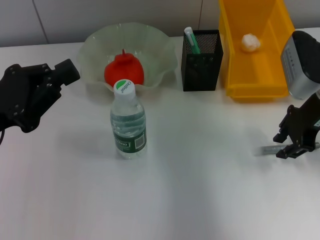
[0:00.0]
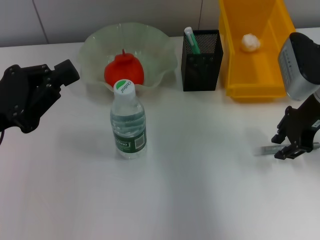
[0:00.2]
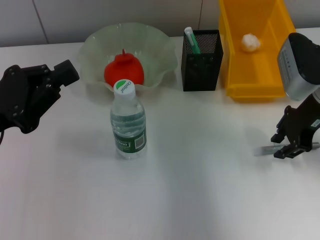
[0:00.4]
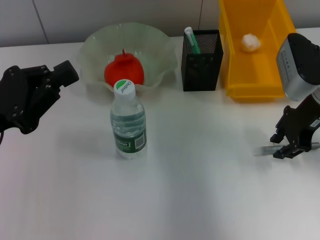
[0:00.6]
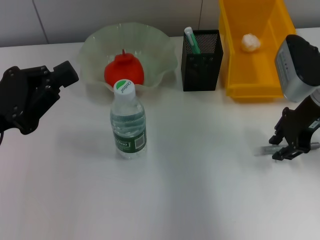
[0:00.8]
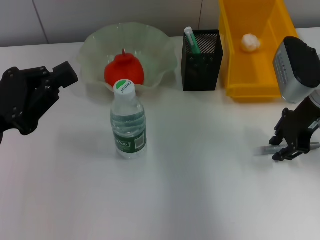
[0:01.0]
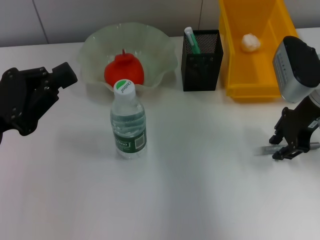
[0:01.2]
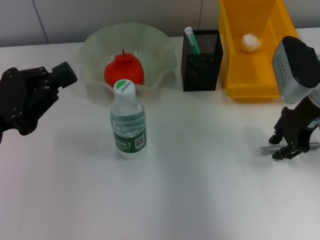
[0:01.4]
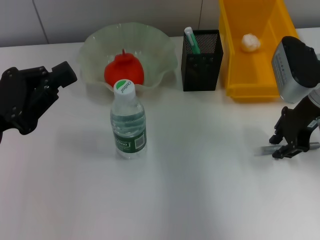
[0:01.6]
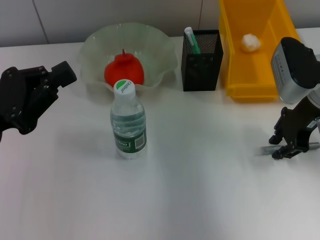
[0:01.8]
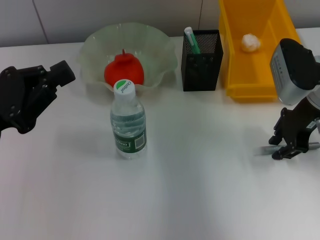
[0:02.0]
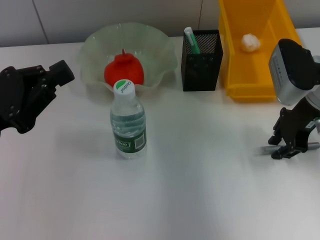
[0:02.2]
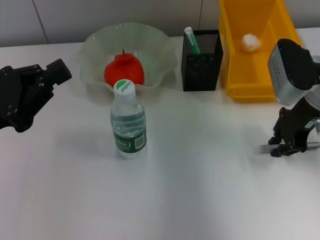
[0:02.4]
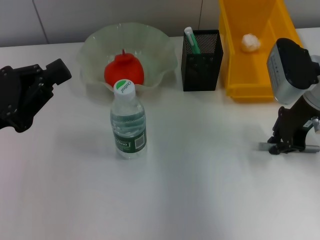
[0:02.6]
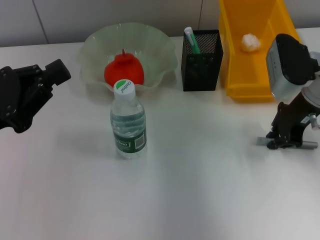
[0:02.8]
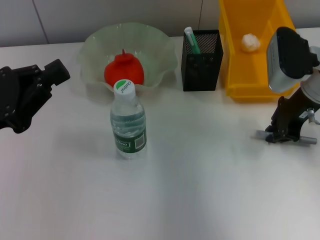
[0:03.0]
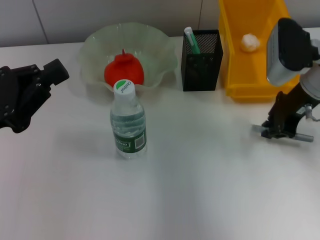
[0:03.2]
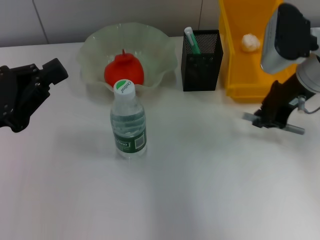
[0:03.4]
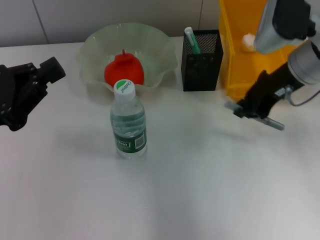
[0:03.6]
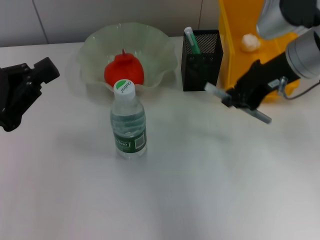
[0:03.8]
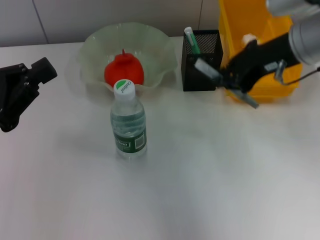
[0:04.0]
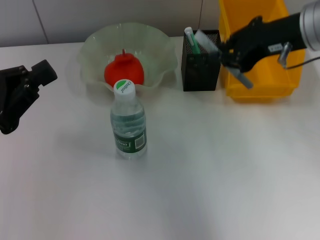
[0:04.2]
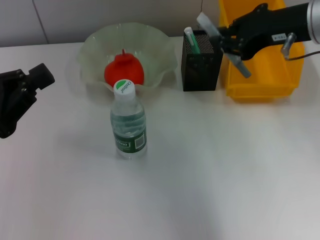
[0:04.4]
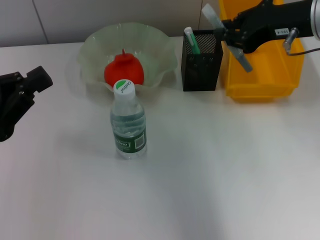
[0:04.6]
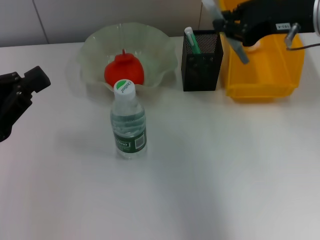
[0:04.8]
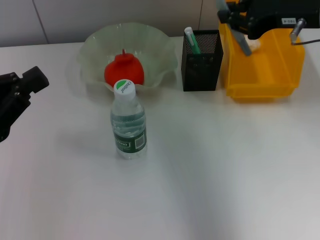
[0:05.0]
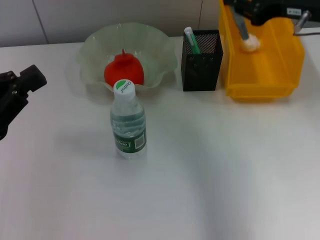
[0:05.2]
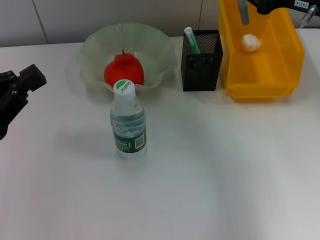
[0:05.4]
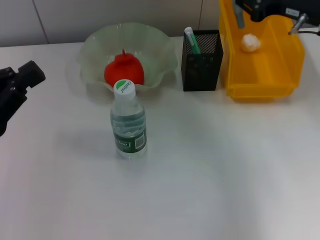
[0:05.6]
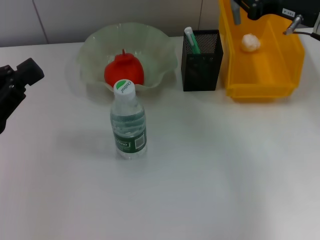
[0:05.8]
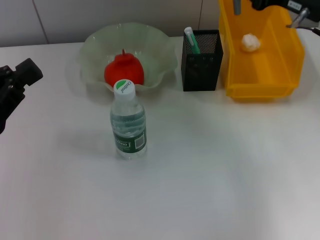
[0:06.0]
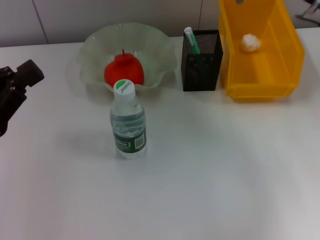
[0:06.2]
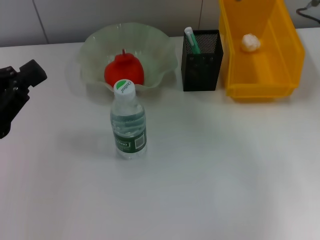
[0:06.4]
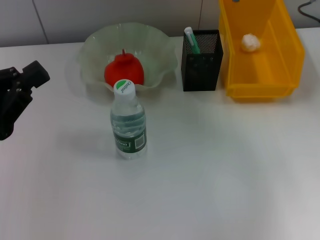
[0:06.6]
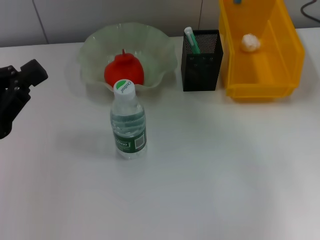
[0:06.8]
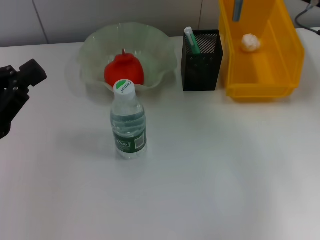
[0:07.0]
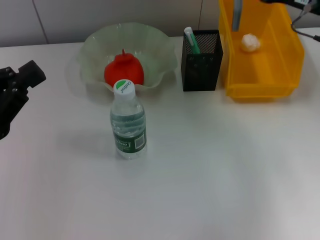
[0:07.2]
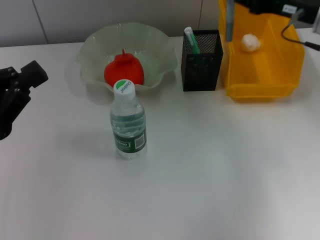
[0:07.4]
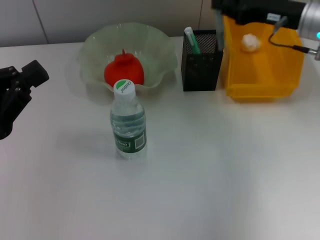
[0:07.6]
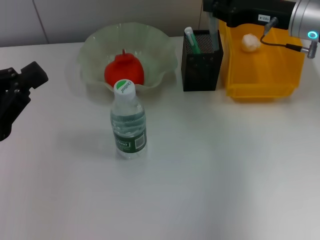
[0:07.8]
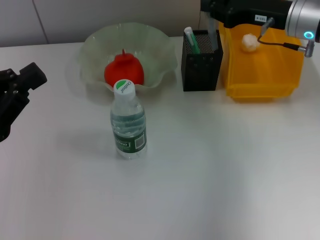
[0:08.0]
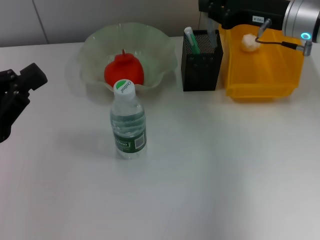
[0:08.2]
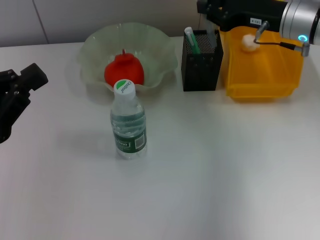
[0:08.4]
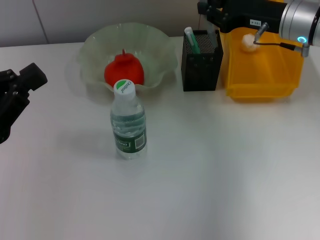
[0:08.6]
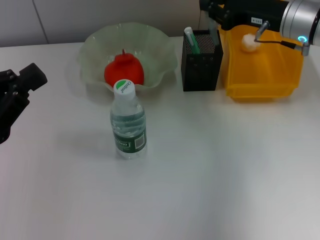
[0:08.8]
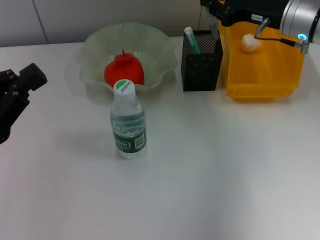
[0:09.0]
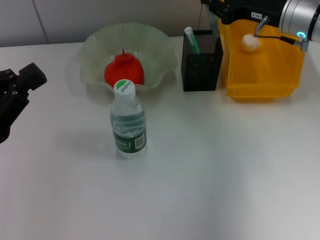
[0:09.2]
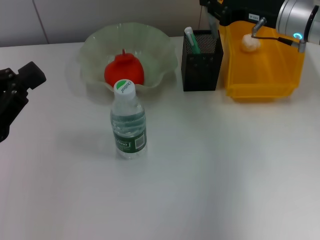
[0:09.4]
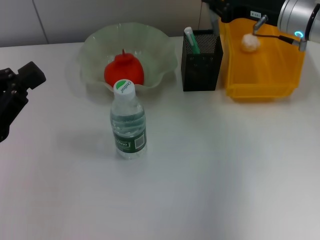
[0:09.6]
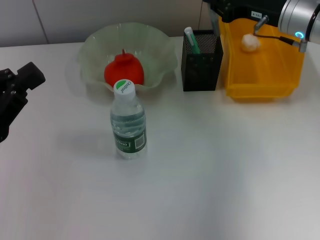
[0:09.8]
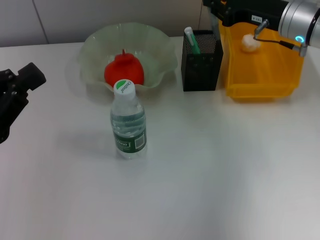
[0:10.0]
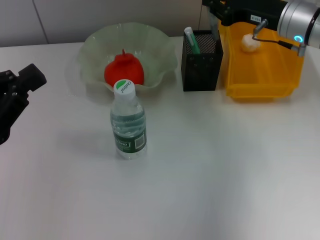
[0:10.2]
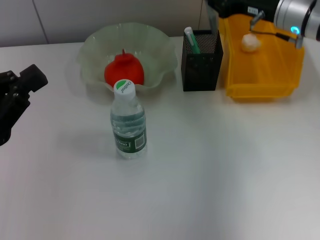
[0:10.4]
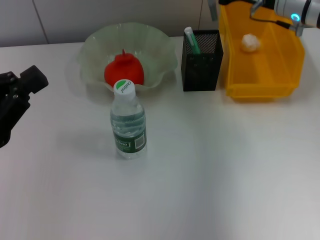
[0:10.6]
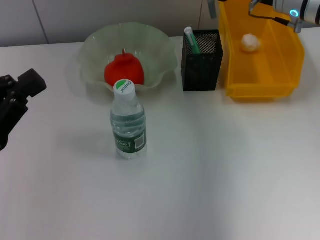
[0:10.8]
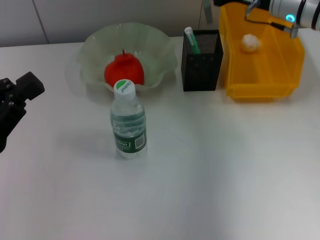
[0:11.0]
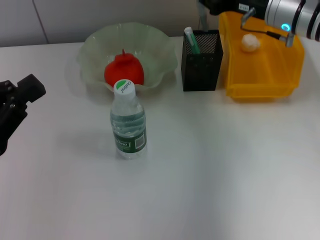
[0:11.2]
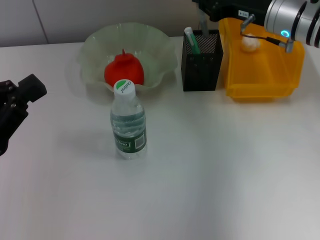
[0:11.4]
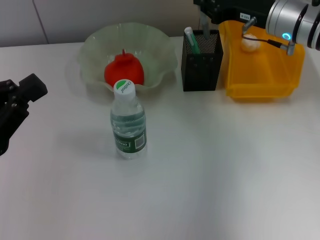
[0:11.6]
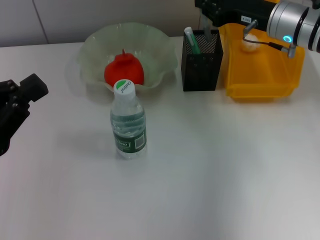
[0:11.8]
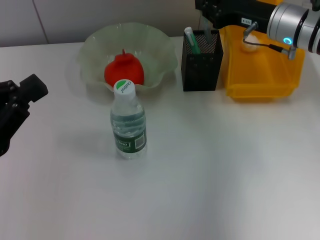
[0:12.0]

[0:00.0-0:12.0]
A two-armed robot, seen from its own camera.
Step, 0:00.0 to 0:02.8: Grab the gray glue with the right hand.
0:00.0 to 0:01.6: Both grippers stay about where they are.
0:01.6 to 0:03.0: There are only small adjustments of the grippers.
0:03.0 to 0:04.4: The right gripper shifts some 10 cm upward.
0:04.4 to 0:06.0: The right gripper is displaced downward by some 5 cm.
0:07.6 to 0:09.0: The grippers stay close to where they were, moving slightly.
0:09.0 to 0:10.4: Neither gripper changes place.
0:10.4 to 0:12.0: The grippers stay close to where they were, moving slightly.

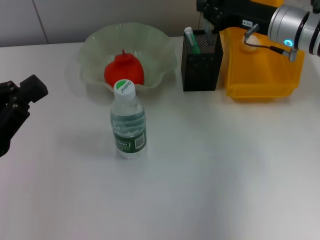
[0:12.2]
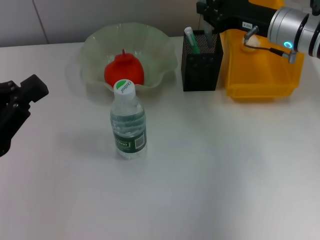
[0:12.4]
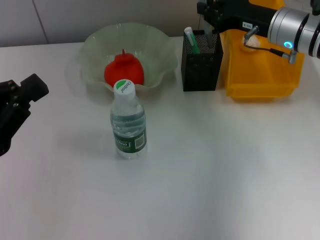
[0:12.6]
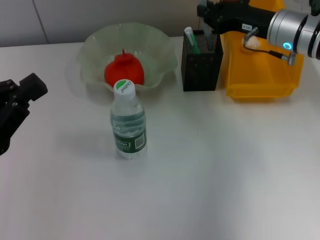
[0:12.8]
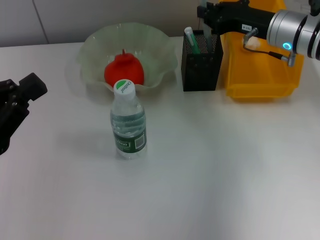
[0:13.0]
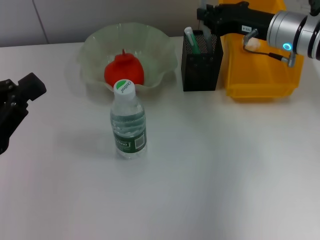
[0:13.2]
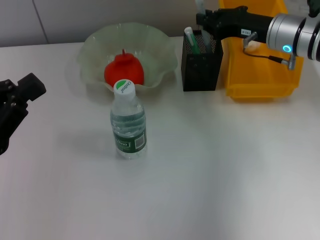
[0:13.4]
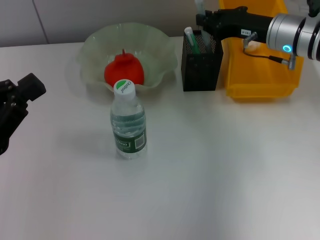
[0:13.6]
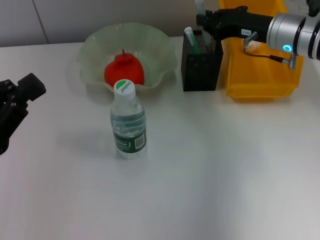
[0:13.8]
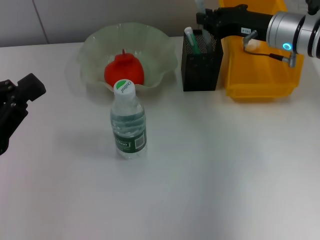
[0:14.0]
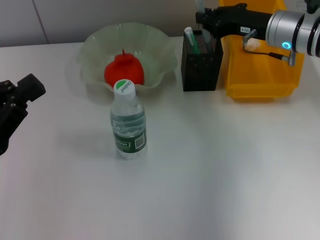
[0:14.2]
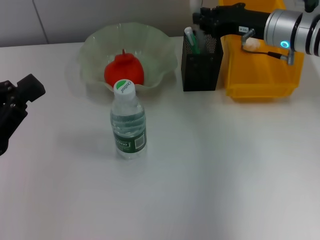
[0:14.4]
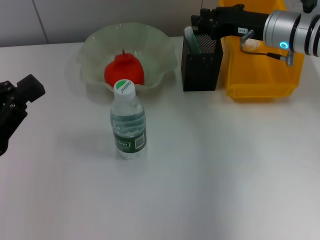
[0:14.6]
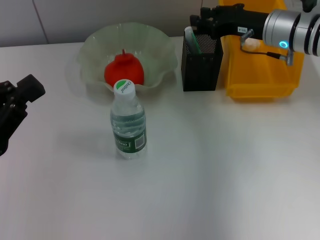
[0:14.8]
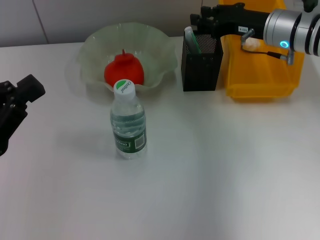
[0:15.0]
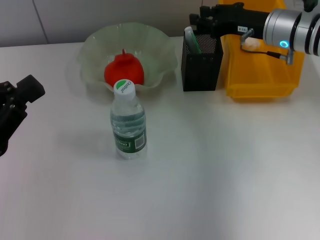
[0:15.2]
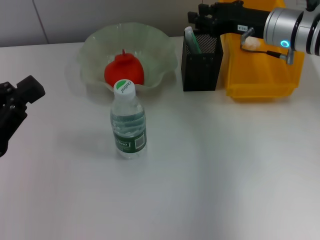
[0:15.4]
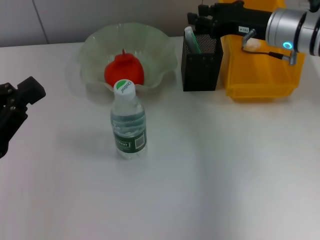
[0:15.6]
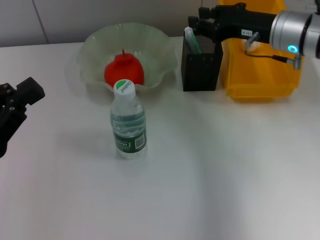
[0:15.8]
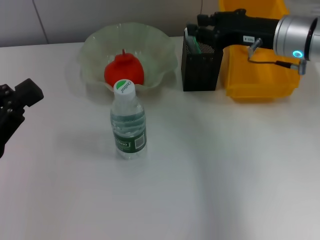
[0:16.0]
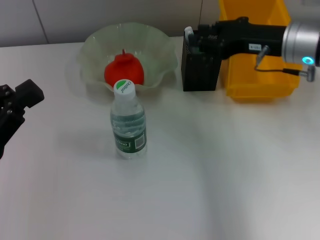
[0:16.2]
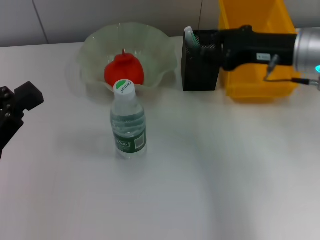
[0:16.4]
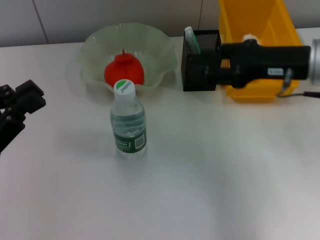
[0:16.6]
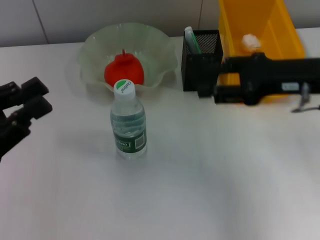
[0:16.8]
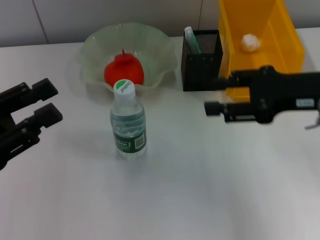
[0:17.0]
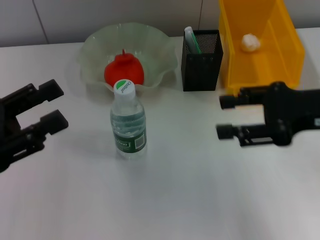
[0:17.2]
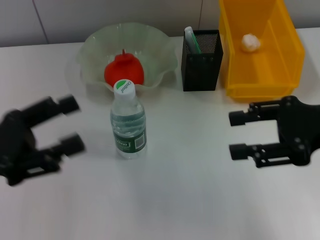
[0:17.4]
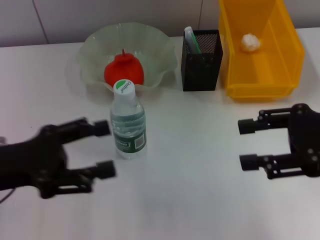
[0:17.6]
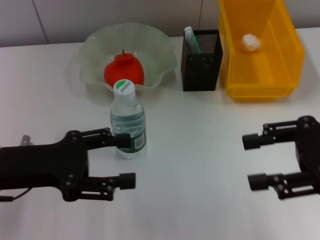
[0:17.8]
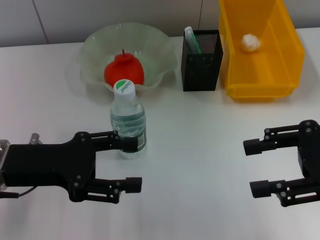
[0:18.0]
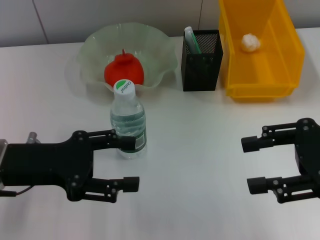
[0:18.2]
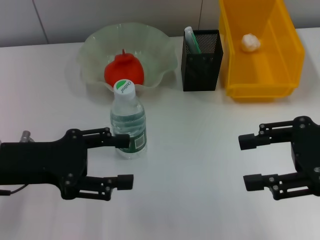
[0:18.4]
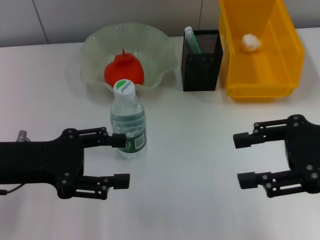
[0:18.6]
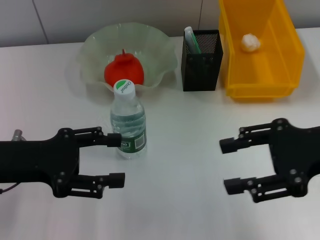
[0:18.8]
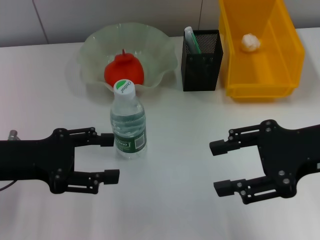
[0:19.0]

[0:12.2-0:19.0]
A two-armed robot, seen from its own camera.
Step, 0:12.2 to 0:15.4: Place the gray glue into the pen holder with the right hand.
0:12.2 to 0:13.6: The grippers stay close to where they were, moving slightly.
0:13.6 to 0:15.0: Neither gripper changes place.
0:15.0 to 0:16.2: The right gripper heads backward, covering some 5 cm.
0:16.2 to 0:17.6: The right gripper goes about 15 cm backward, and opens up. The left gripper opens up.
0:17.6 to 0:19.0: There are only small adjustments of the grippers.
